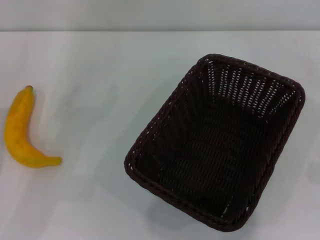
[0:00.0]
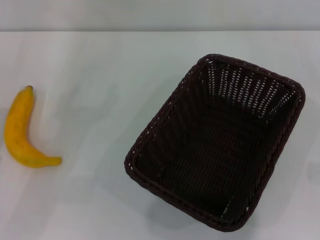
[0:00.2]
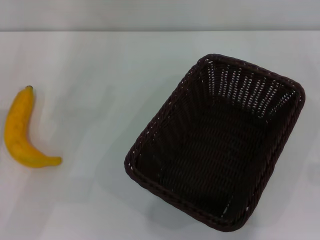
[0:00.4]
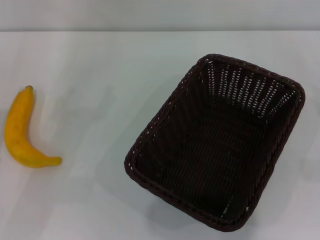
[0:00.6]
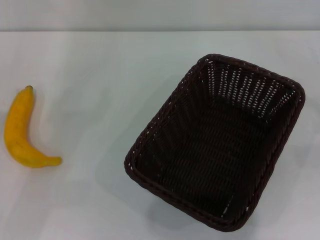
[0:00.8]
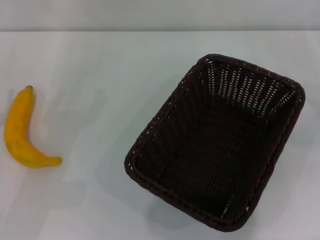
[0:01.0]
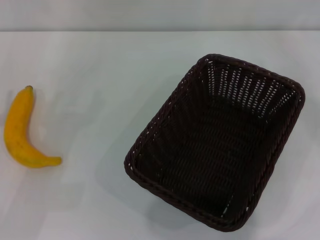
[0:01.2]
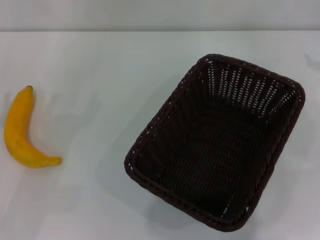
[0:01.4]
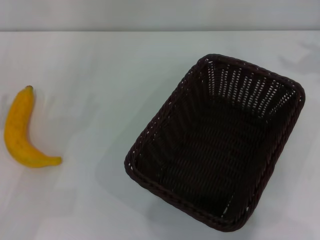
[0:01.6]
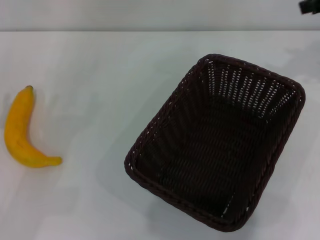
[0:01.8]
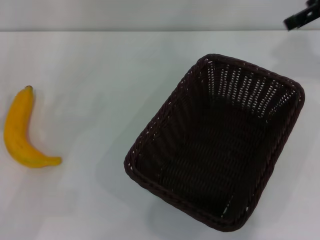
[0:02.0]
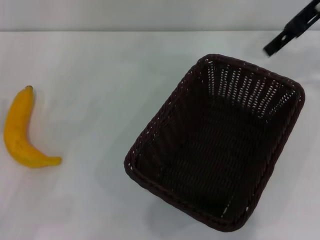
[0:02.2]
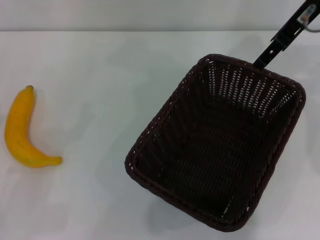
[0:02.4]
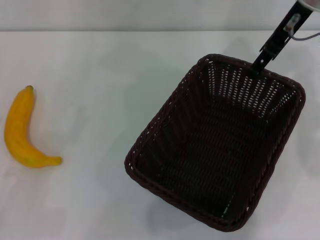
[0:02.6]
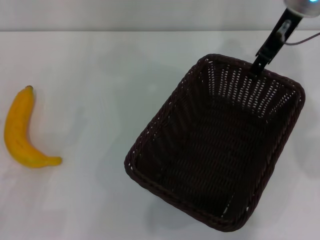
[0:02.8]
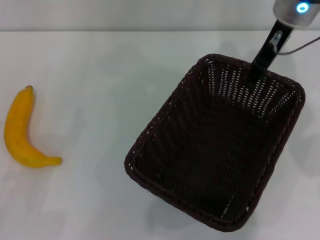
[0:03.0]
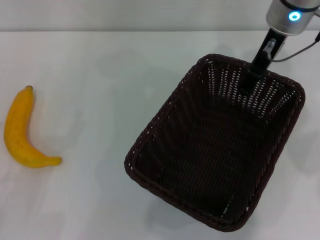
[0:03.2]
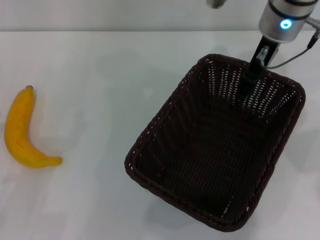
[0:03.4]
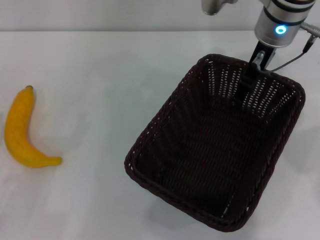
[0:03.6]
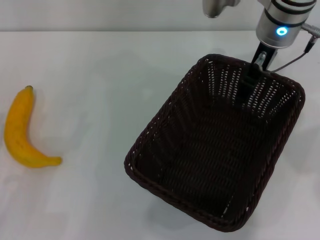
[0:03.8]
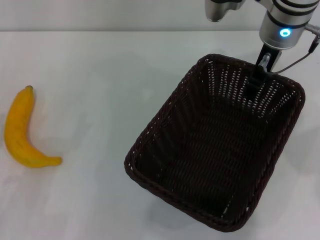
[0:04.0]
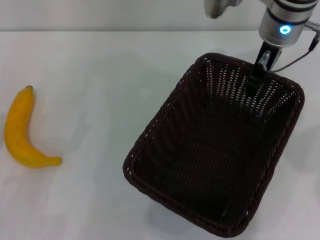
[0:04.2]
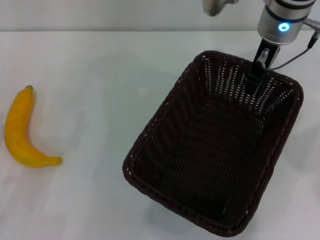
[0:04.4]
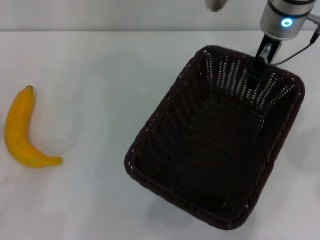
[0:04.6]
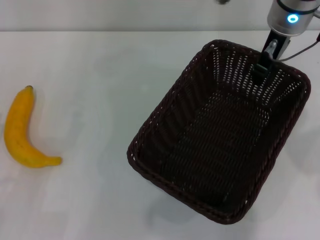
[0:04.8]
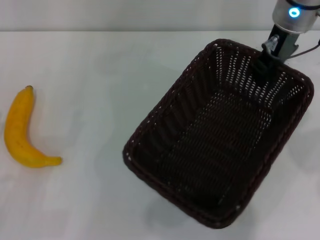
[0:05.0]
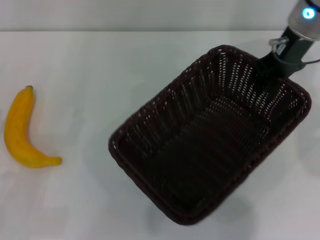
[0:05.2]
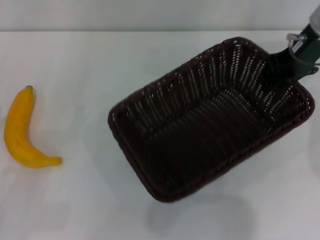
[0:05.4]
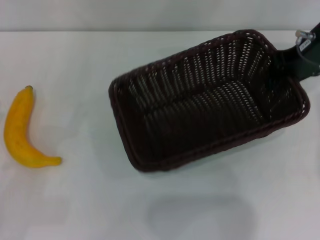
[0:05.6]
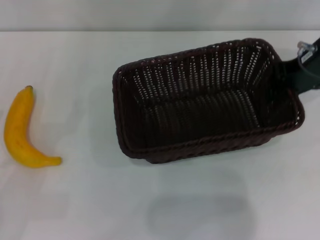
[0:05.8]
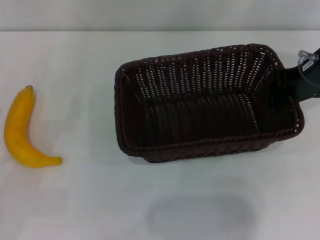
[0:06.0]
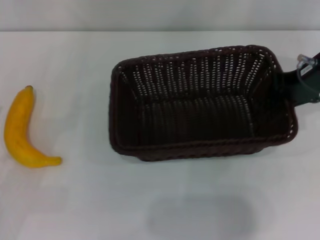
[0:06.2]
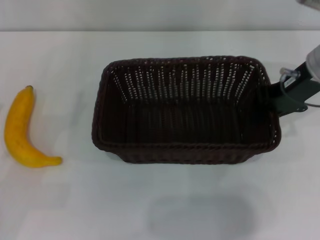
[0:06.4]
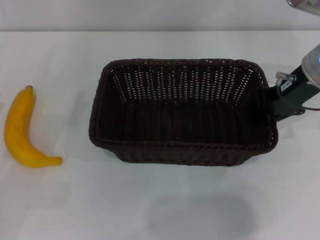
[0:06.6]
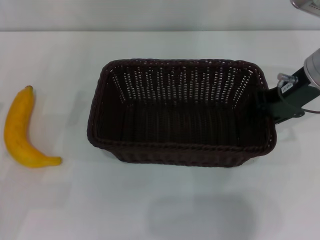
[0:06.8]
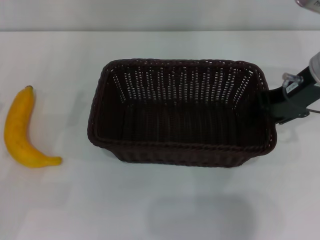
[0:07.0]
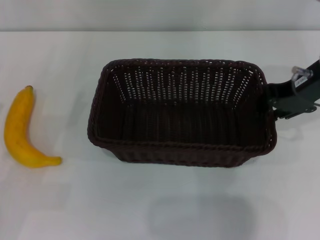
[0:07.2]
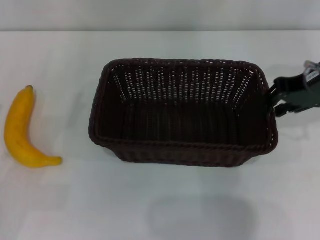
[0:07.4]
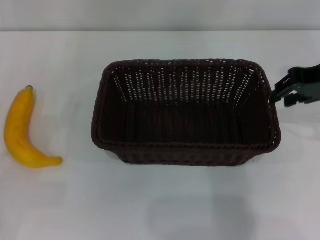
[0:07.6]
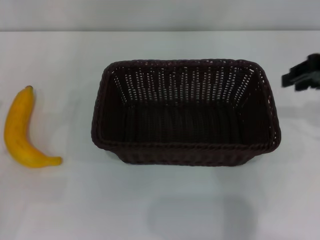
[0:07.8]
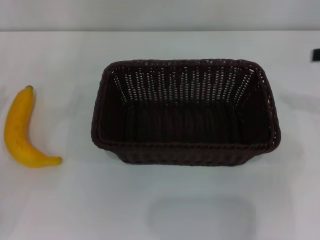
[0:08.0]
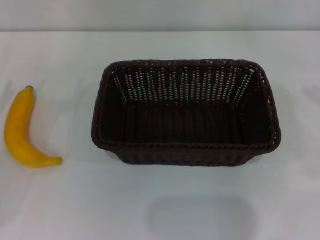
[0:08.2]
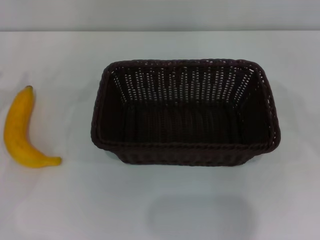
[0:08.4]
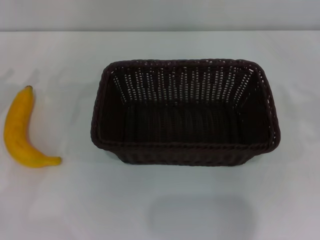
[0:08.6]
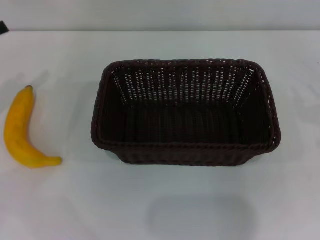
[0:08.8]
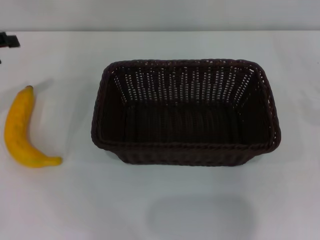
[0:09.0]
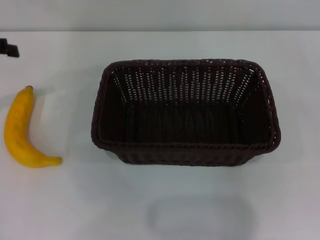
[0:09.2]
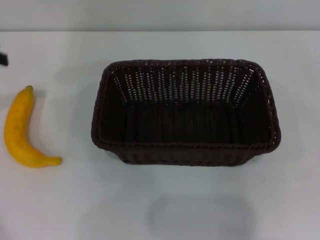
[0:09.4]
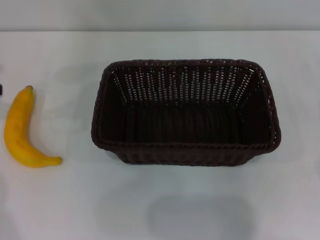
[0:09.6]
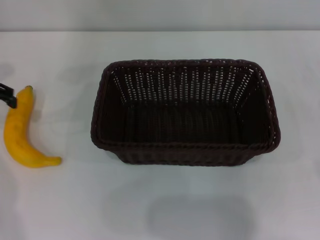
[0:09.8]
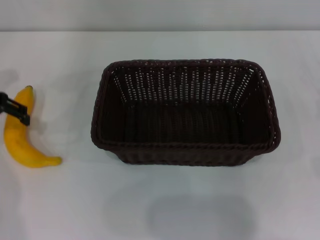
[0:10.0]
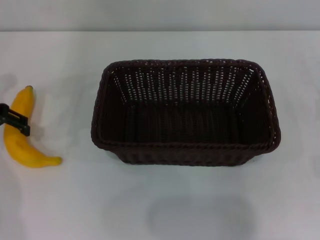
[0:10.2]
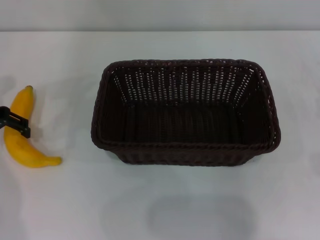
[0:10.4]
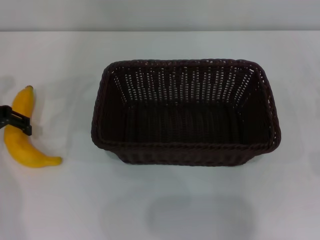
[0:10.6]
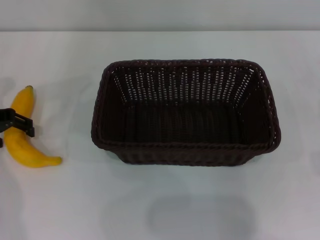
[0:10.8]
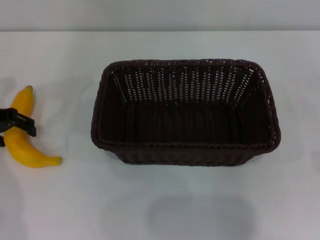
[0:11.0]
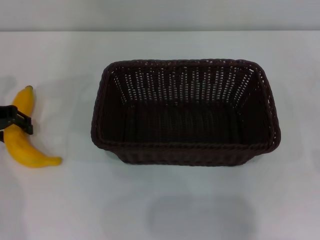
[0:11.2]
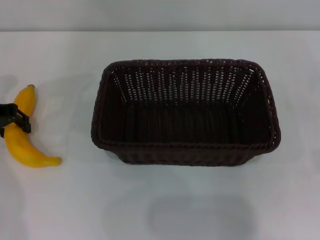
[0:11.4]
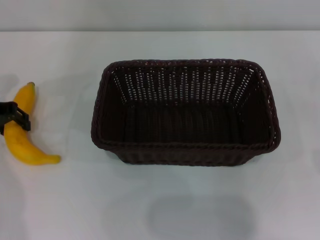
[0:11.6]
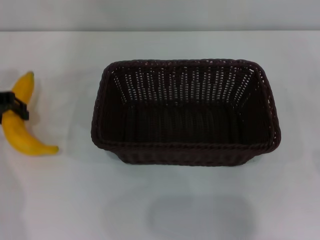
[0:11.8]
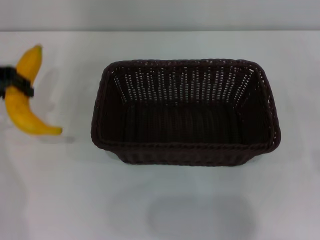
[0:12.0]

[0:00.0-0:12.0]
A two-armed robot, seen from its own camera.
Step, 0:00.0 to 0:04.6: Pick up the dark basket with the right gripper.
Step, 0:04.8 to 0:07.2: Place the dark basket in the center of view with the right gripper.
Step, 0:07.6 to 0:11.6: Pick up the banana with the left gripper.
0:01.6 to 0:03.0: The right gripper is displaced to the left by approximately 20 cm.
0:03.0 to 0:04.4: The right gripper closes.
0:04.4 to 0:06.0: The right gripper travels to the right by some 10 cm.
0:06.0 to 0:07.6: The right gripper is displaced backward by about 5 cm.
0:07.6 to 0:09.0: The right gripper travels to the right, downward and backward by roughly 25 cm.
0:09.0 to 0:10.4: The left gripper travels upward and back again, about 5 cm each way.
0:10.4 to 0:12.0: The left gripper moves approximately 5 cm, and closes its fingers.

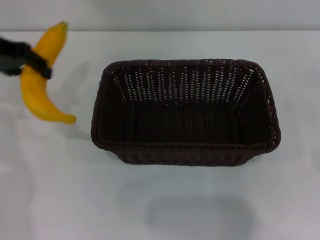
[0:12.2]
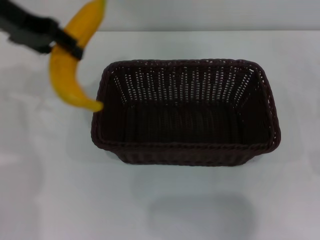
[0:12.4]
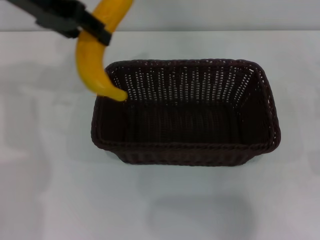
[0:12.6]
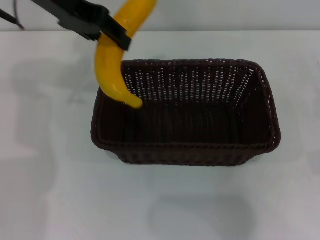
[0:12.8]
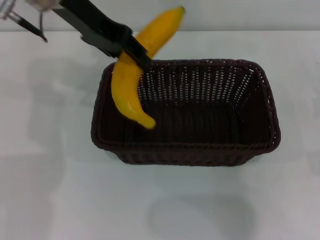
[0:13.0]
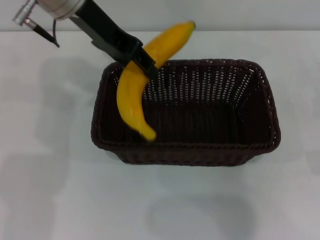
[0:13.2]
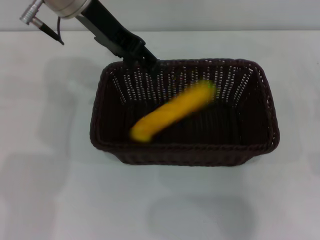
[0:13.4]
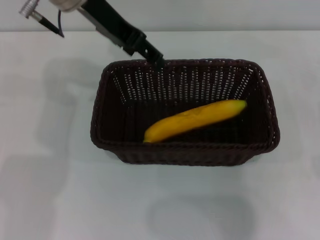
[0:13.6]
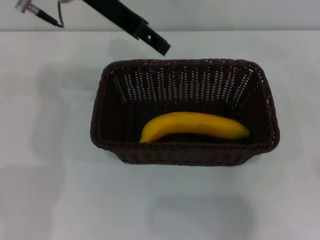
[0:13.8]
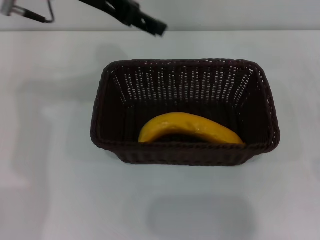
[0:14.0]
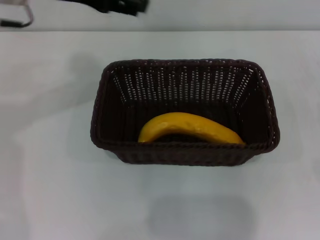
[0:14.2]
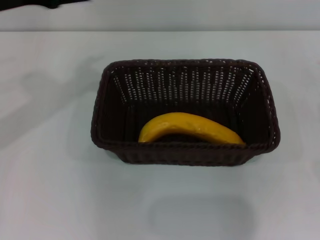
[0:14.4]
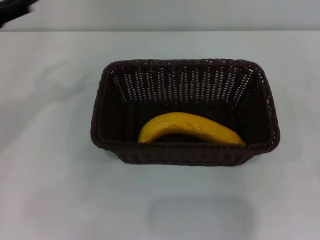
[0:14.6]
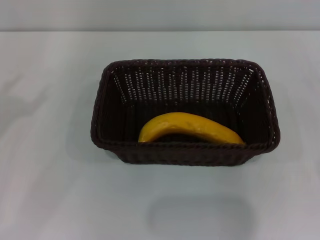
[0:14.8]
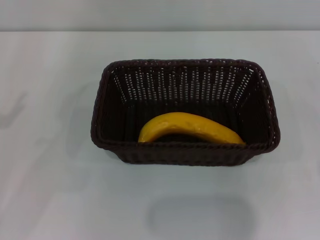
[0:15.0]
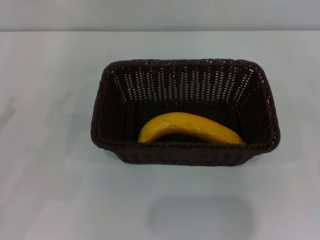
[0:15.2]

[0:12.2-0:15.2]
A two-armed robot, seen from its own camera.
Step, 0:12.2 to 0:13.4: Place the banana into the dark basket with the left gripper.
0:12.2 to 0:13.8: The left gripper moves to the right, about 15 cm, and opens.
0:13.8 to 0:15.2: The left gripper heads to the left, backward and downward, covering about 35 cm.

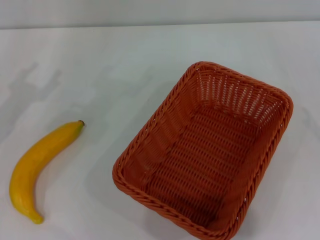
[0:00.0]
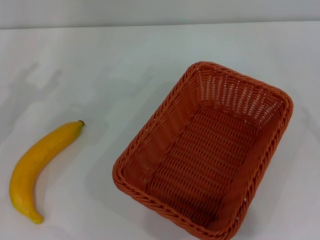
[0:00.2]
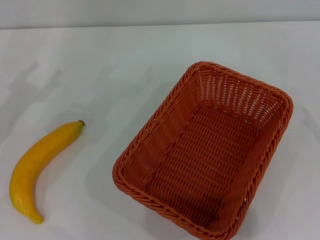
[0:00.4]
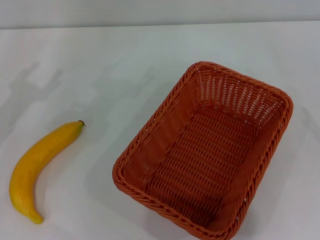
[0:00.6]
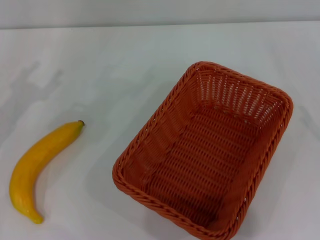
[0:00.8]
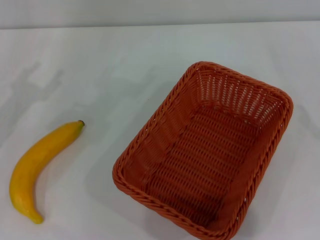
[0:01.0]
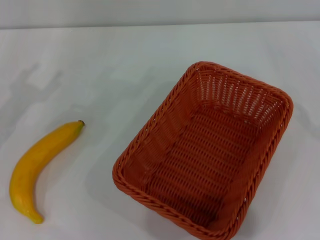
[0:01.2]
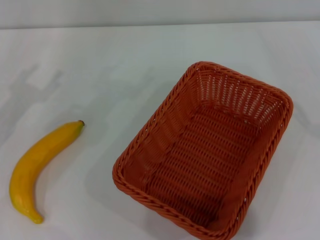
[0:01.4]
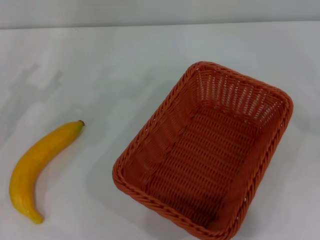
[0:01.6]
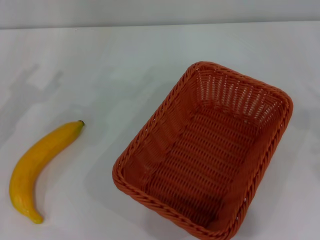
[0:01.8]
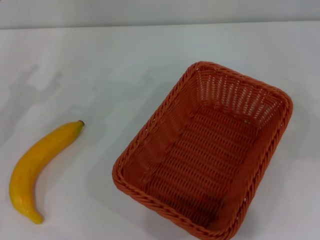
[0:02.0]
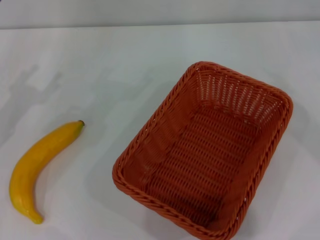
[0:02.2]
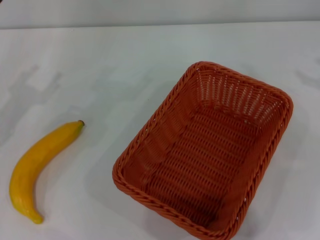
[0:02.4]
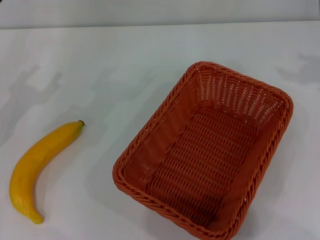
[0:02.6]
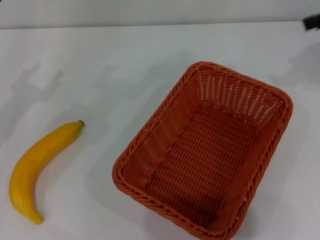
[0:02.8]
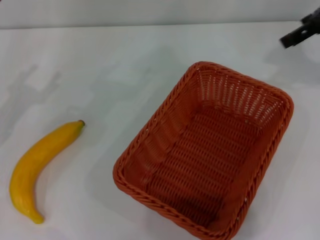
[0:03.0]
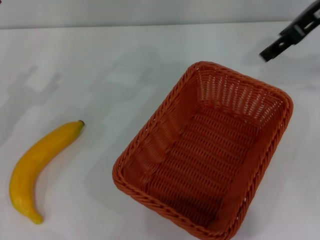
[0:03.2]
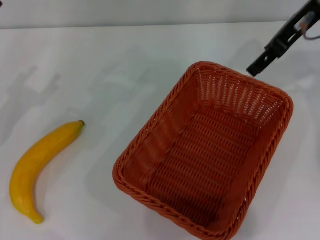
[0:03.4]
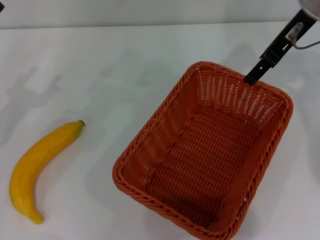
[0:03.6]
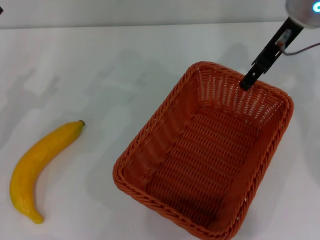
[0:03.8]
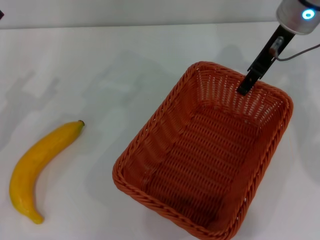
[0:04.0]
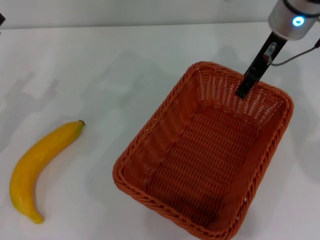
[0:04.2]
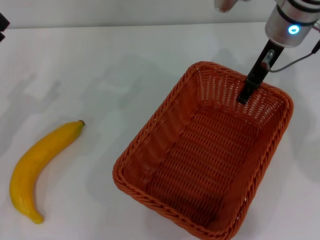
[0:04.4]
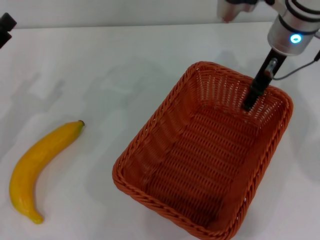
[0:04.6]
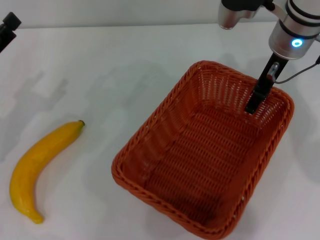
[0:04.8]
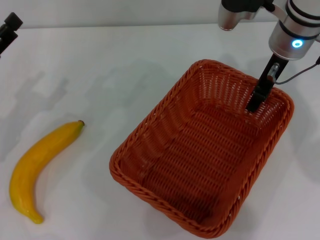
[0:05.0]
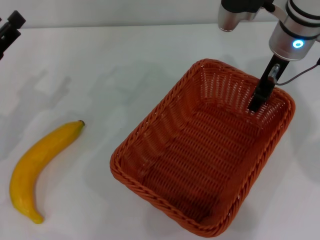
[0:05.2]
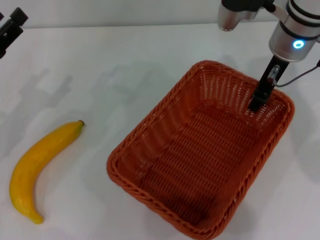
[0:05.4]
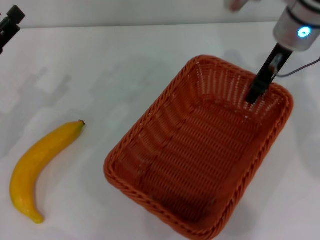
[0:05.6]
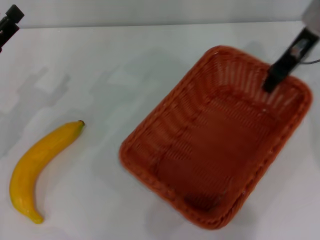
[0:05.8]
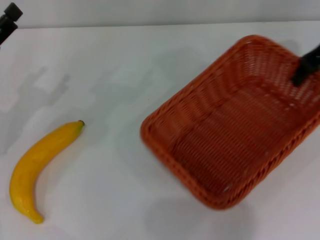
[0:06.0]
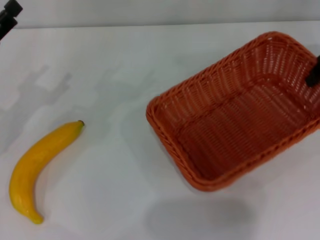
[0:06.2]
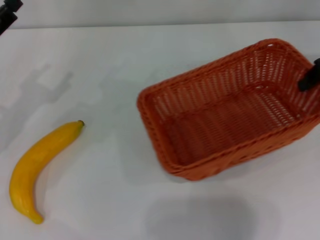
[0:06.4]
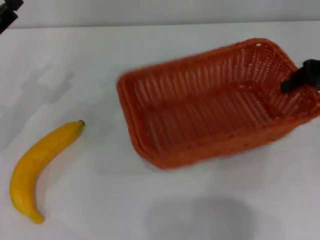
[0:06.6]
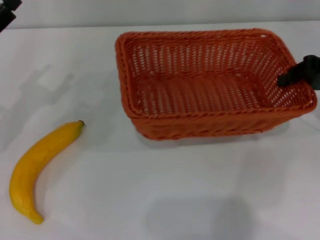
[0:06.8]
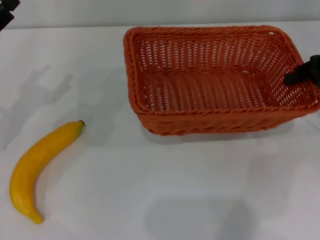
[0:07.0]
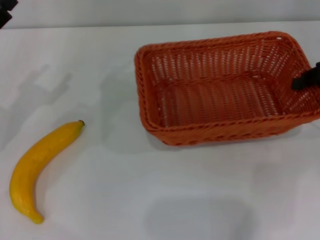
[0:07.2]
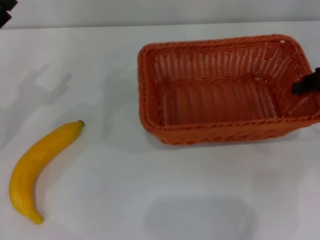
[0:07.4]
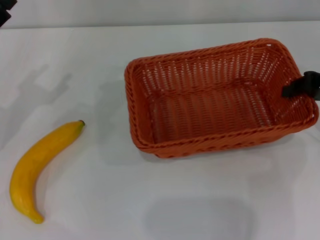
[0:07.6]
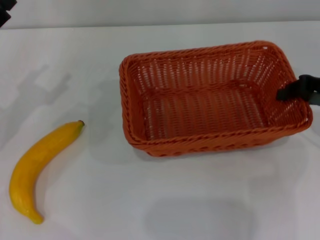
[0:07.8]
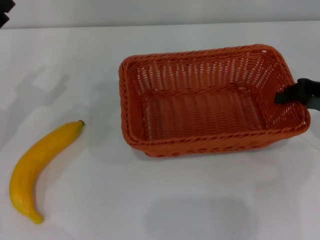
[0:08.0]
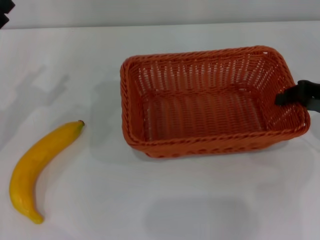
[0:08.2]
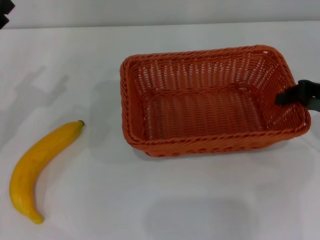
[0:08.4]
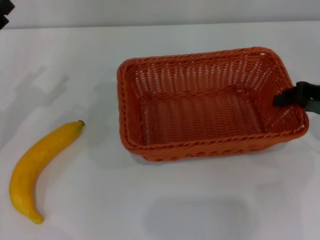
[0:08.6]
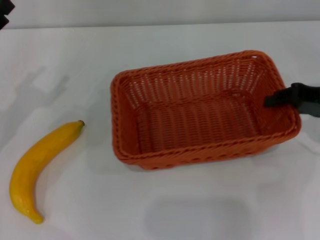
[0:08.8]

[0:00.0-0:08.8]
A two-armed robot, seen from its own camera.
Step, 0:00.0 to 0:05.6: Pick up the light basket with the right gripper.
0:01.4 to 0:03.0: The right gripper travels forward, to the left and upward by approximately 35 cm.
0:03.0 to 0:04.4: The right gripper travels to the left and downward by roughly 15 cm.
0:04.4 to 0:05.8: The right gripper moves to the right, roughly 5 cm, and closes.
0:05.8 to 0:07.4: The right gripper goes approximately 15 cm to the right, backward and downward.
0:07.4 to 0:08.8: There are only small adjustments of the grippers.
